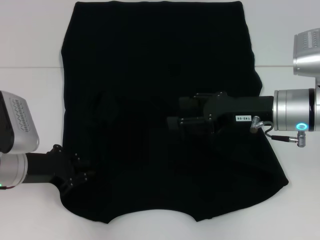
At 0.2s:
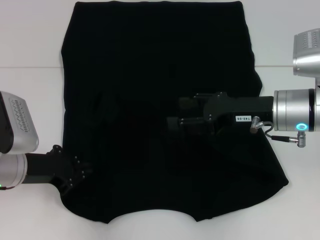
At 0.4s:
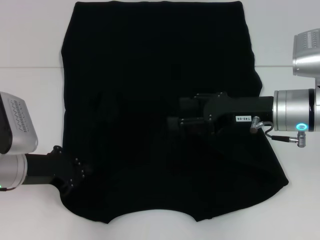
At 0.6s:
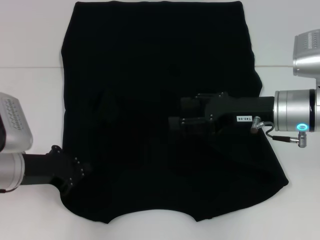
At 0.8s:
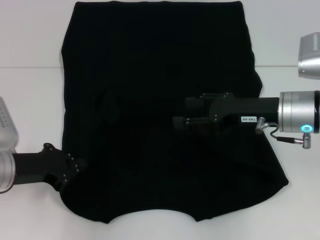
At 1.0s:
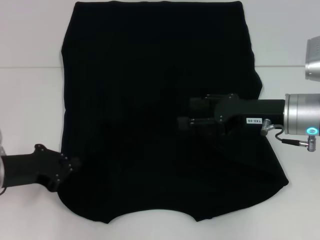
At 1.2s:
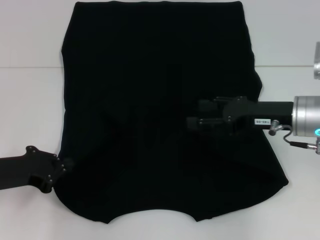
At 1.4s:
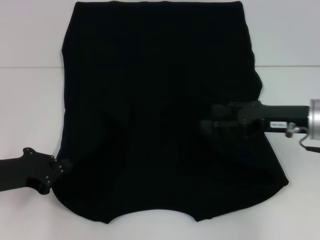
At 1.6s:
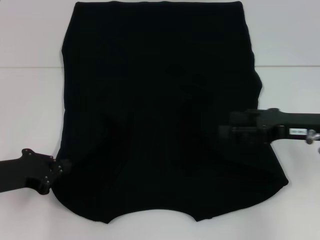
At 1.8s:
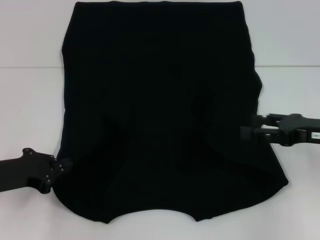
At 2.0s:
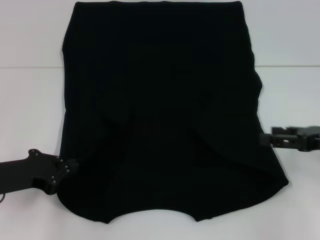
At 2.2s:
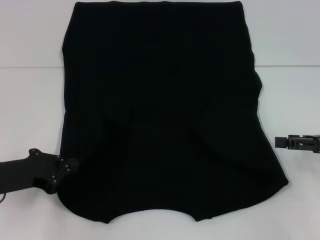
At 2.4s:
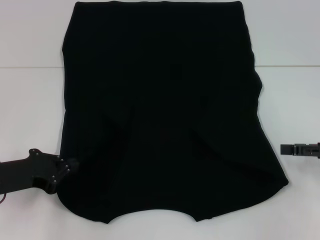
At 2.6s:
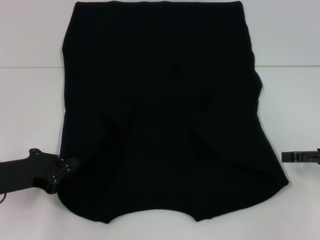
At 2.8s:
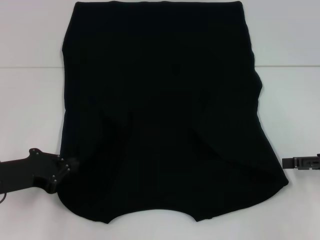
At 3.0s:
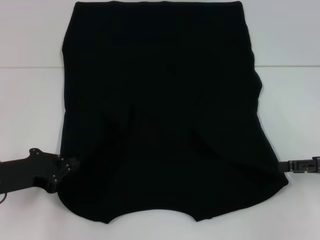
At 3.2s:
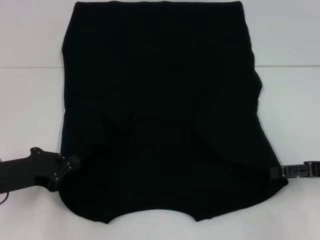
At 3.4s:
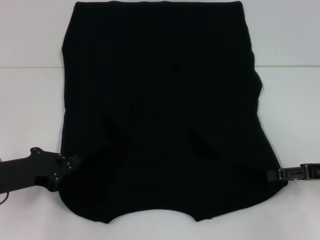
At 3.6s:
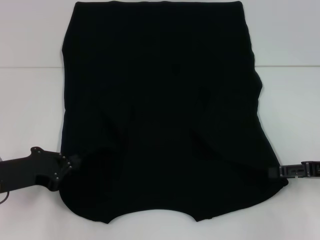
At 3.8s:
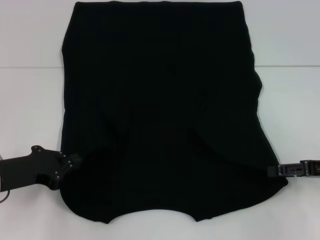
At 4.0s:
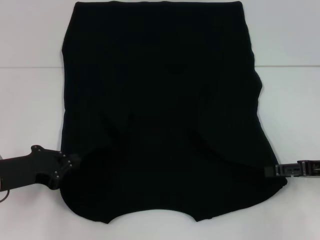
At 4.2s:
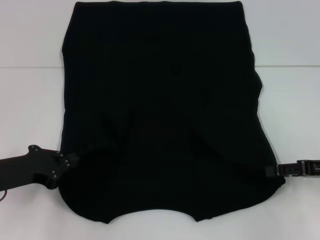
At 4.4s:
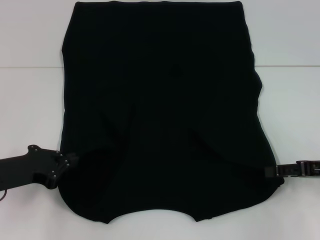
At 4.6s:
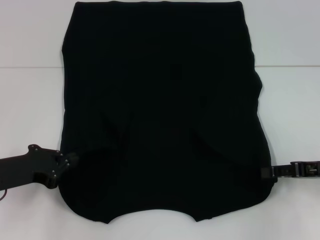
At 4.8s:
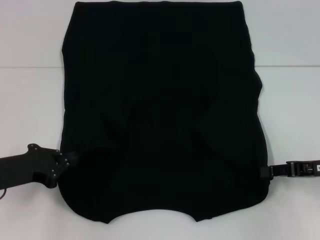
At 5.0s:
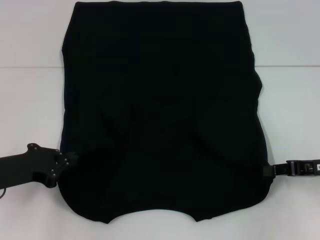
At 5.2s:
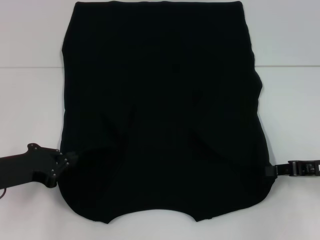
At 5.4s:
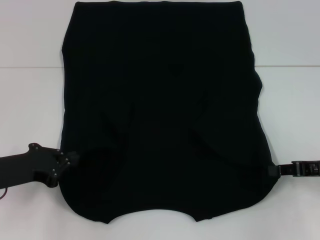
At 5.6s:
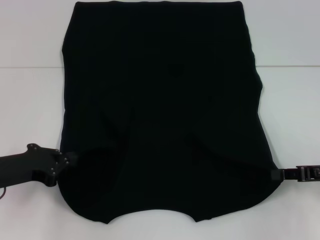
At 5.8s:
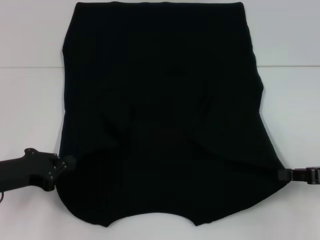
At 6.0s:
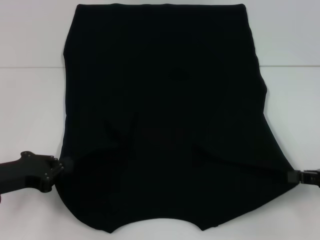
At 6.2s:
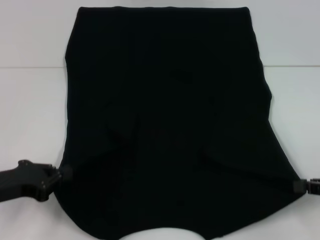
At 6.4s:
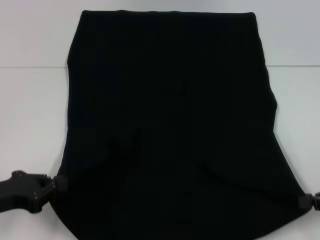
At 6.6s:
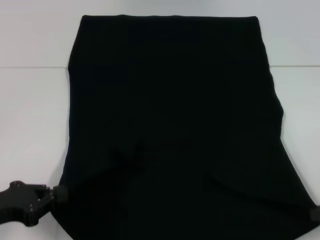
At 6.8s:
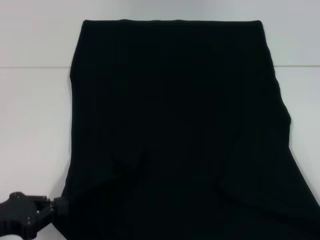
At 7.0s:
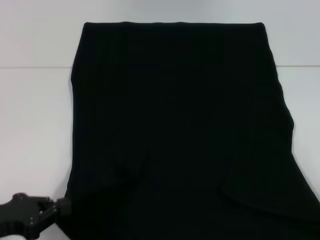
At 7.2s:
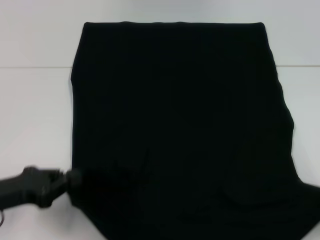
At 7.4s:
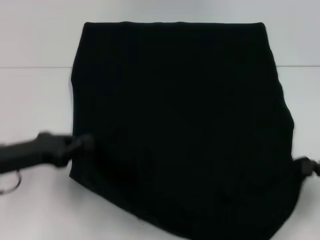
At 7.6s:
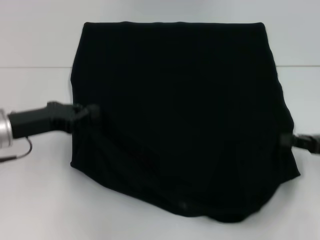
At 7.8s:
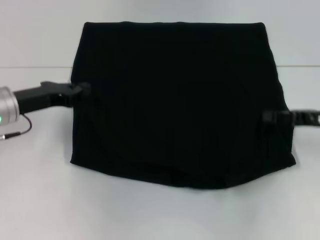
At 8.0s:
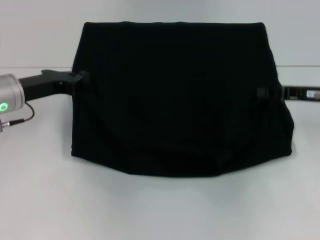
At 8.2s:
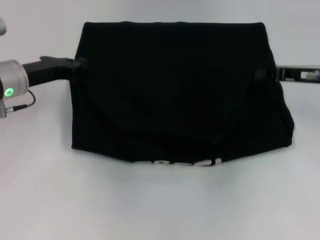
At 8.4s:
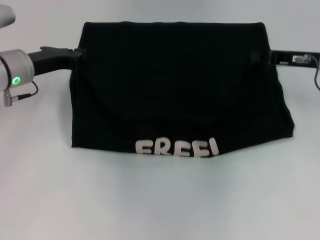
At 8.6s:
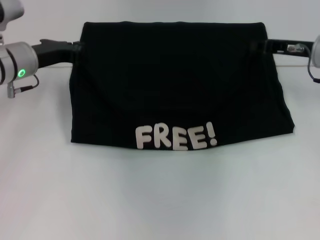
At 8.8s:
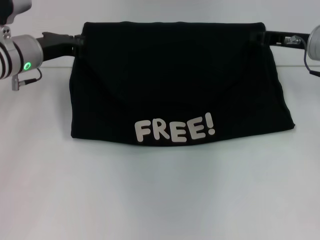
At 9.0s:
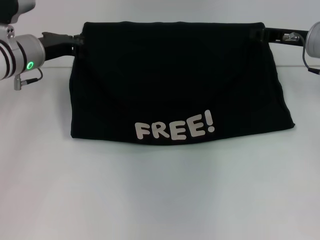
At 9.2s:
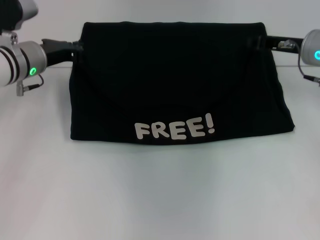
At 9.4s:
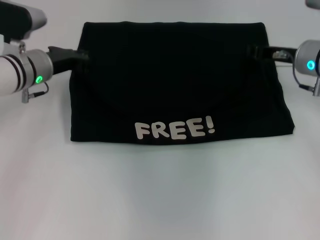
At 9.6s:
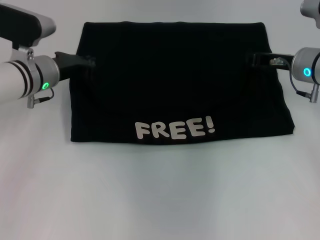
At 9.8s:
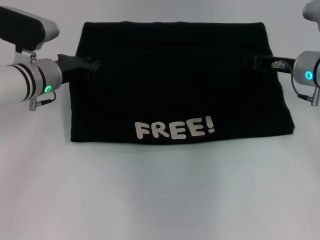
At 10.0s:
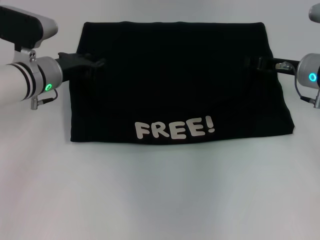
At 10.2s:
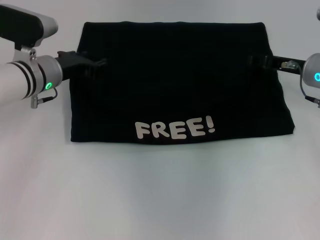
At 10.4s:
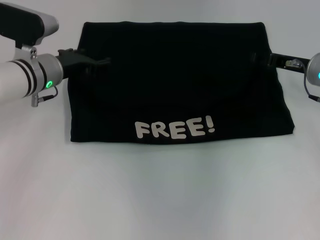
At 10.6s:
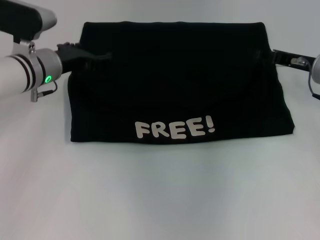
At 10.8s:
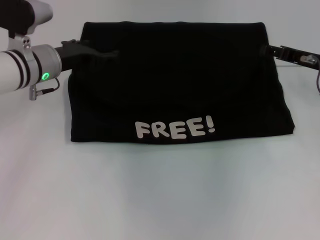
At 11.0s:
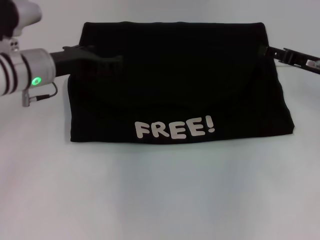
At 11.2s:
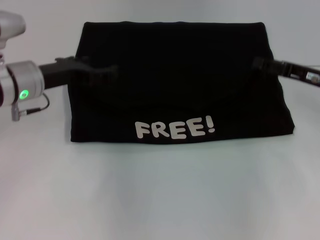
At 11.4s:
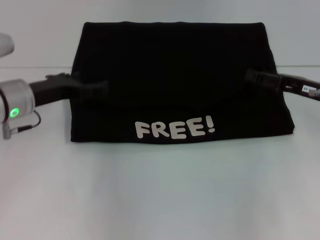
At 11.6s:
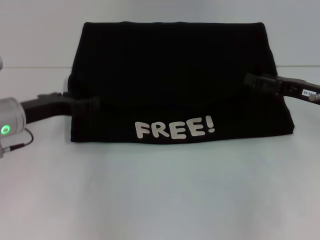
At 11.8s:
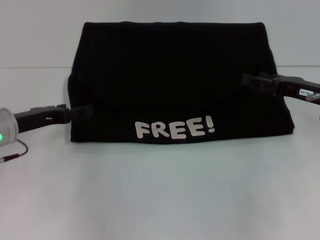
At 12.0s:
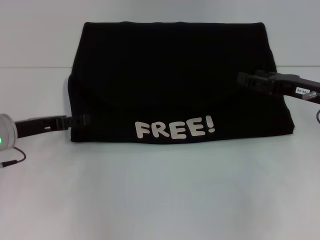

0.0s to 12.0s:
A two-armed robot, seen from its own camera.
Step, 1.4s to 5.4s: Grab the bottom right corner with your right hand.
Step, 5.6s to 10.0s: Fold the clothes with your left hand.
Step, 5.6s to 10.0s: Fold the clothes with your right hand.
0.0s to 1.6s: The left gripper shifts by approximately 5 cm, and closes, while the right gripper shifts roughly 10 cm to the right.
1.6s to 3.0s: The right gripper heads to the right, covering roughly 10 cm.
3.0s to 4.4s: There are only small adjustments of the grippers.
4.4s to 6.0s: The right gripper closes.
6.0s to 7.6s: The left gripper moves forward, some 5 cm. The right gripper reaches some 10 cm backward, then returns.
7.6s to 9.0s: The left gripper is displaced forward by about 10 cm, while the right gripper is displaced forward, to the left and upward by roughly 20 cm.
9.0s to 10.4s: The right gripper opens its fingers. The left gripper opens.
10.4s to 12.0s: The left gripper shifts some 10 cm backward and to the left, and opens up, while the right gripper is displaced backward by roughly 5 cm.

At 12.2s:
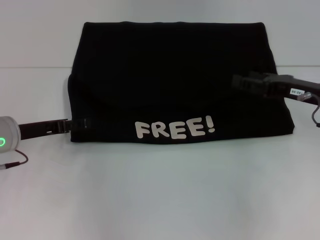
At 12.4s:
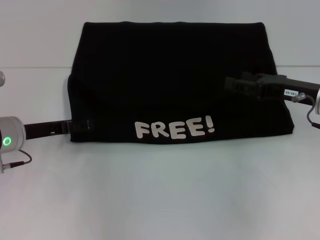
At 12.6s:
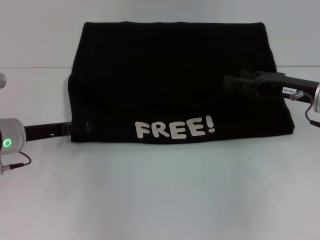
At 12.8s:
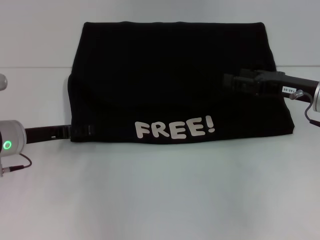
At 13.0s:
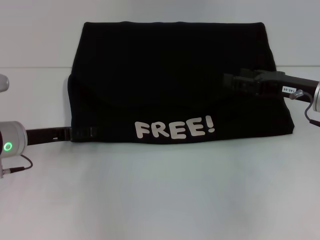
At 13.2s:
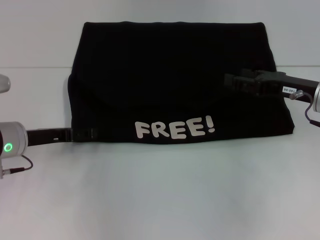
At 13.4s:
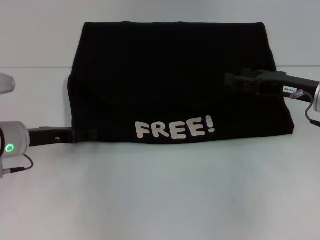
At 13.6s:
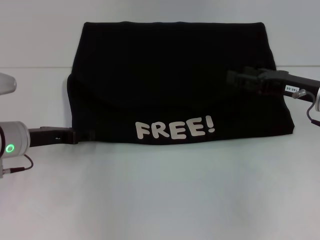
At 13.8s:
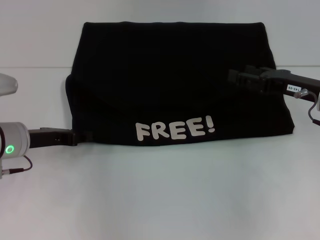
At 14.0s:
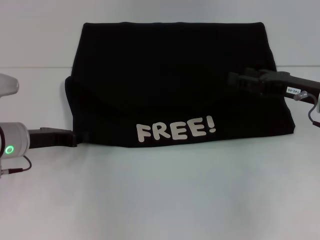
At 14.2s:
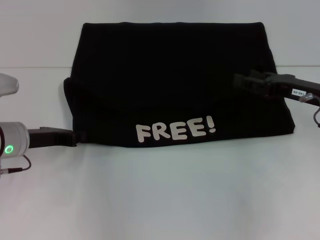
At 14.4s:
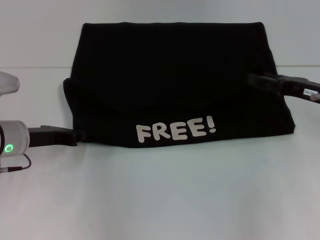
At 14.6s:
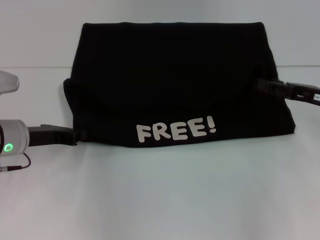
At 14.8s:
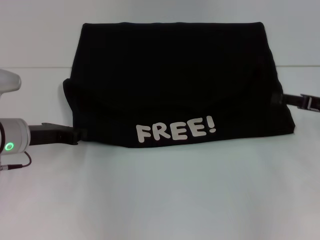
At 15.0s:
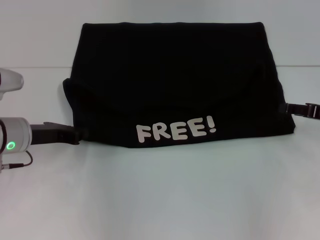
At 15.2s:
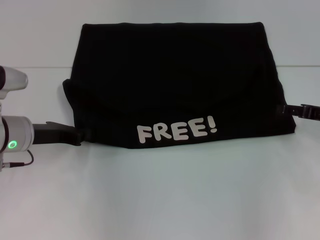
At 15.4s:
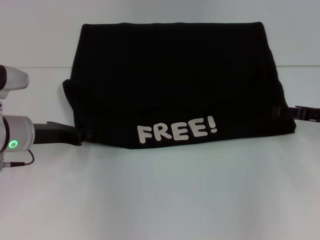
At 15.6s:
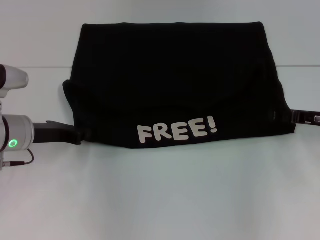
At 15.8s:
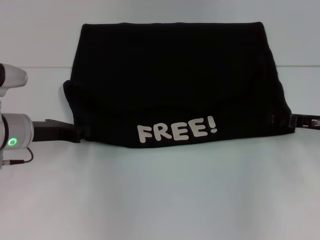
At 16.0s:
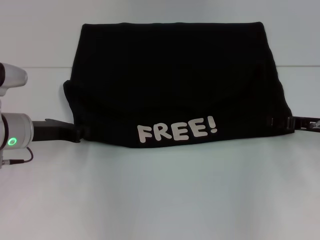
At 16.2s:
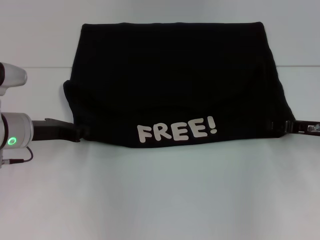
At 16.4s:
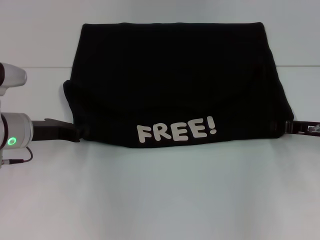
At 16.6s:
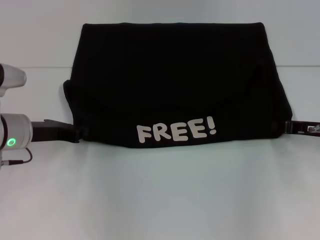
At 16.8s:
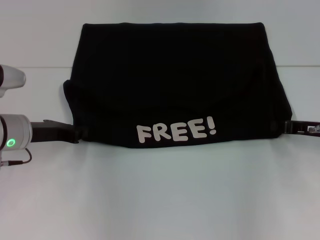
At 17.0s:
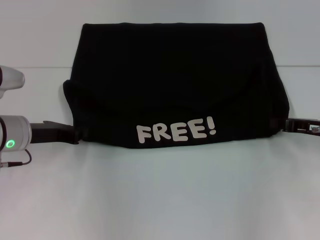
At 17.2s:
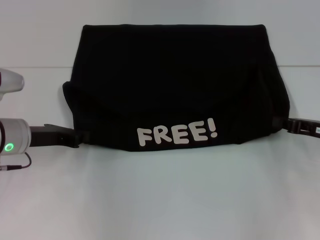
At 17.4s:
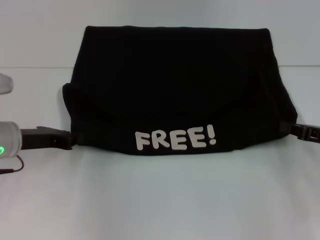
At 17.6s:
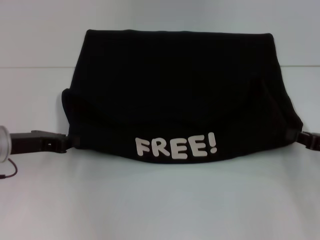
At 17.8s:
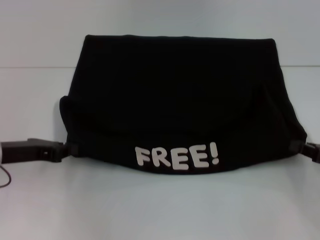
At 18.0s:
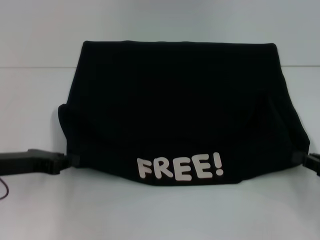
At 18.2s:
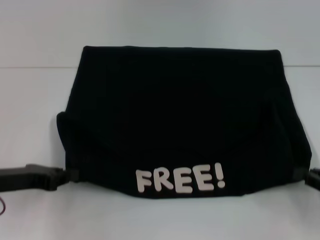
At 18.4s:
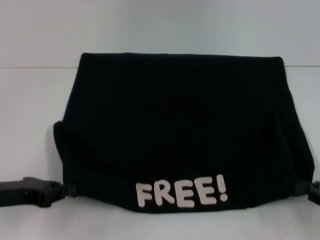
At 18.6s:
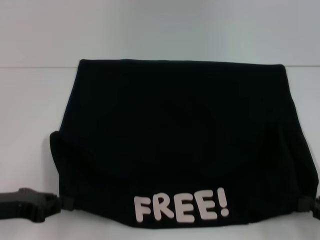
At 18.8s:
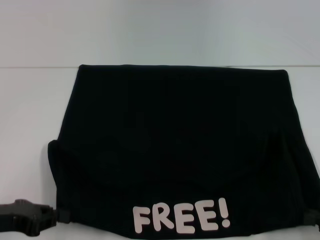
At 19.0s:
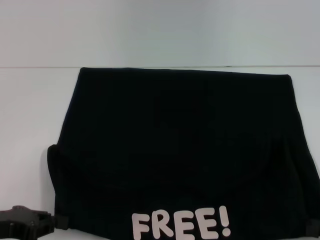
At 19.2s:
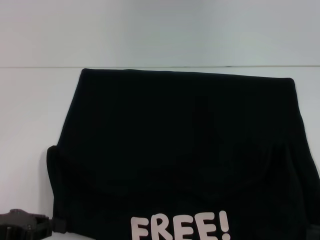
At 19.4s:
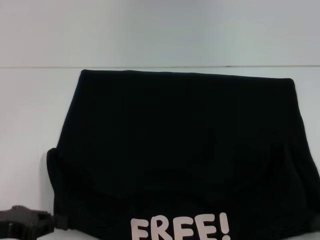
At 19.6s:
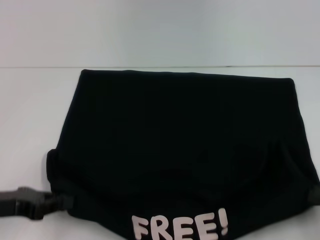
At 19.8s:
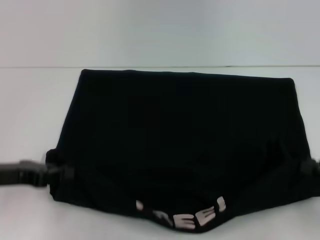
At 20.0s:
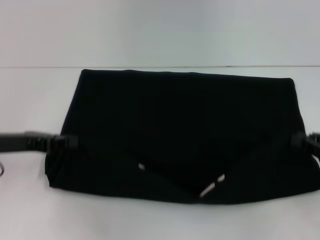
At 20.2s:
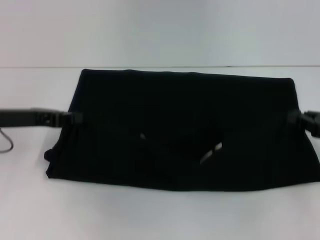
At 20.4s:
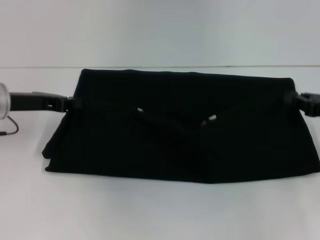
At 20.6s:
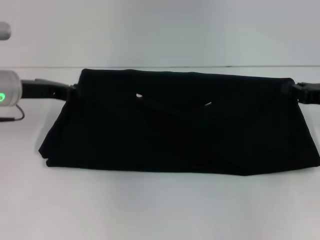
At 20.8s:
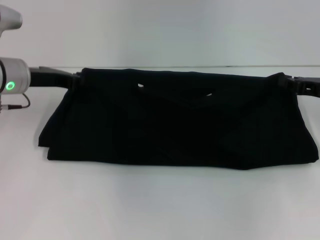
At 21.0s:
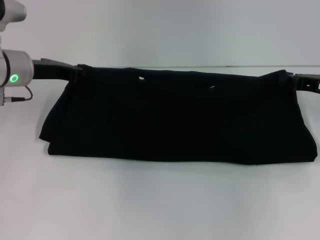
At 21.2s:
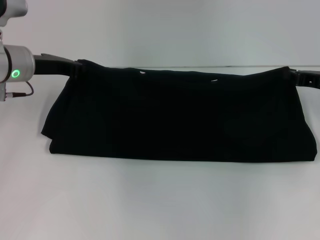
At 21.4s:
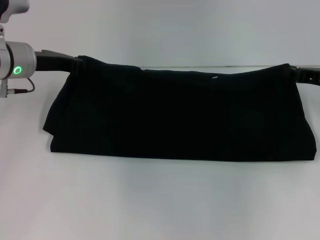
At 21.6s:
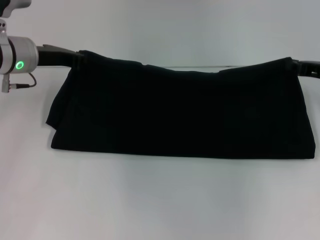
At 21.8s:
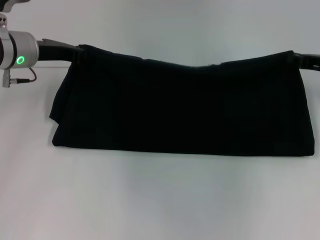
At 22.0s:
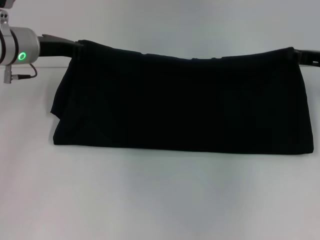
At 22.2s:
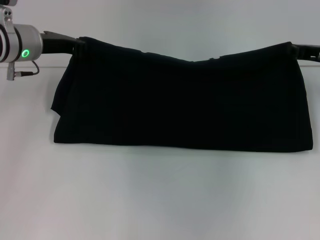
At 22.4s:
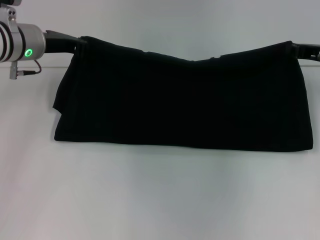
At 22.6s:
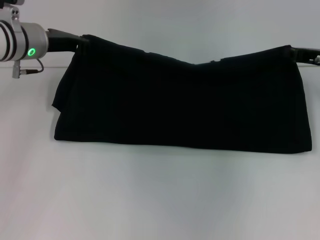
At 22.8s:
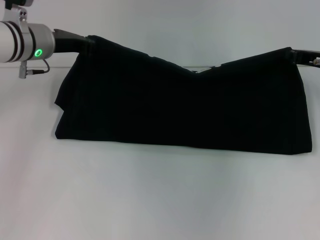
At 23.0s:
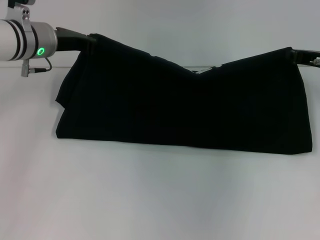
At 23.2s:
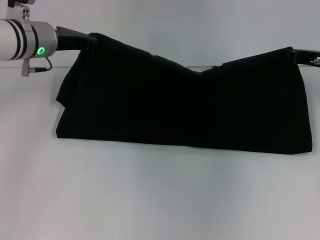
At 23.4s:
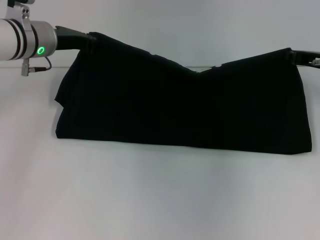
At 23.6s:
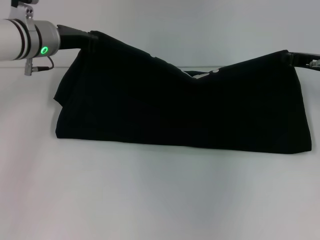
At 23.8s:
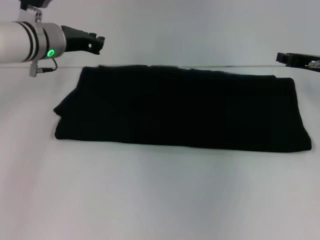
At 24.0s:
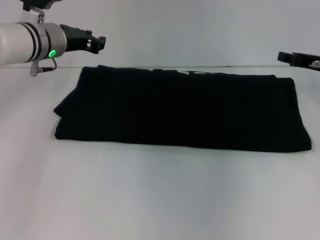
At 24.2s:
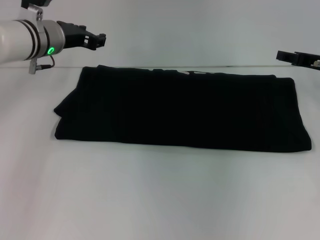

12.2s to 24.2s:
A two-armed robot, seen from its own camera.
Step, 12.2s to 19.2s: Pull the clothes with your left hand.
Step, 12.2s to 19.2s: Pull the clothes with your right hand.
Step, 19.4s to 23.8s: Fold the clothes with your right hand.
12.2s to 13.8s: The grippers stay close to where they were, moving slightly.
13.8s to 15.2s: The left gripper closes up. The right gripper goes some 5 cm to the right.
15.2s to 16.6s: The right gripper closes its fingers.
16.6s to 18.2s: The left gripper moves backward, some 10 cm. Meanwhile the right gripper shifts about 15 cm backward and to the right.
19.8s to 21.2s: Both grippers travel together forward, approximately 15 cm.
21.2s to 22.6s: The grippers stay close to where they were, moving slightly.
22.6s to 24.2s: The right gripper opens up.
